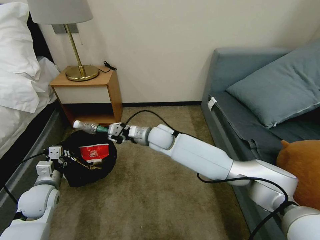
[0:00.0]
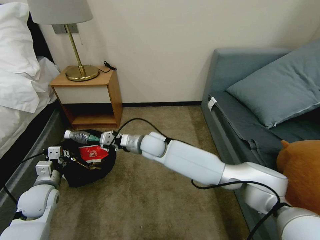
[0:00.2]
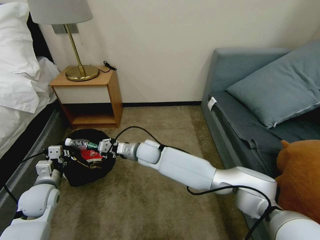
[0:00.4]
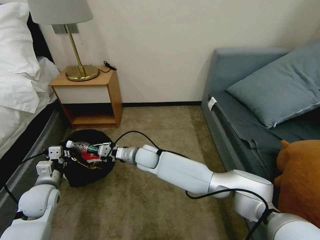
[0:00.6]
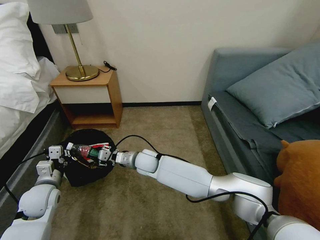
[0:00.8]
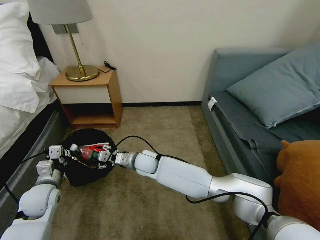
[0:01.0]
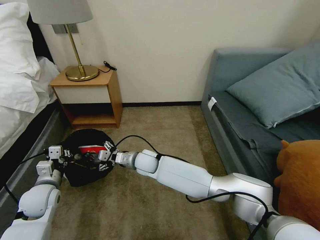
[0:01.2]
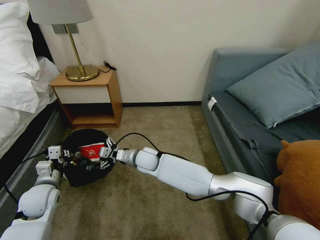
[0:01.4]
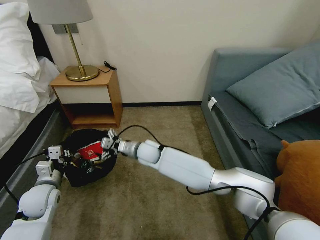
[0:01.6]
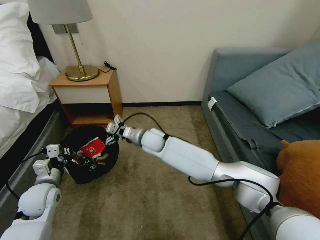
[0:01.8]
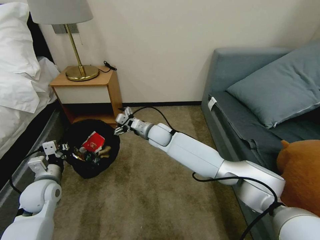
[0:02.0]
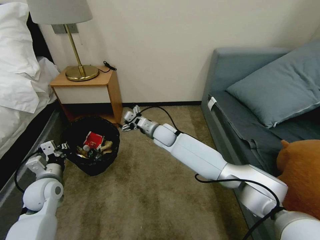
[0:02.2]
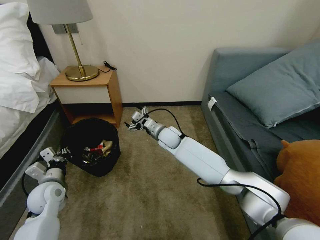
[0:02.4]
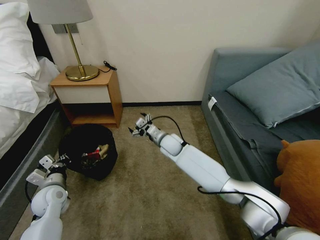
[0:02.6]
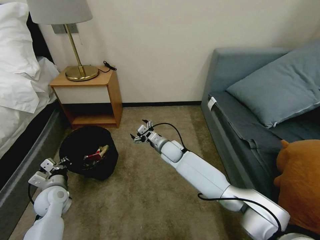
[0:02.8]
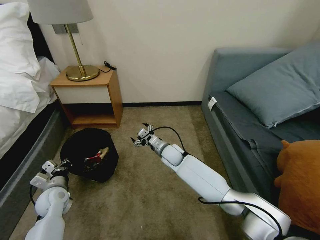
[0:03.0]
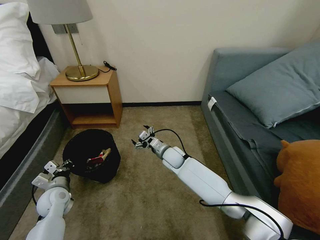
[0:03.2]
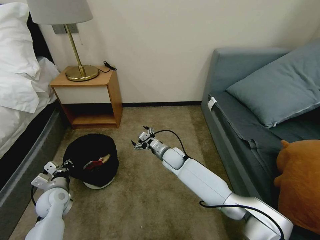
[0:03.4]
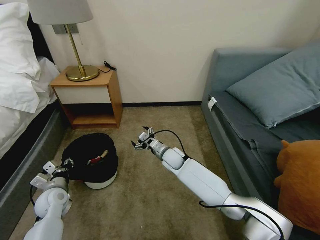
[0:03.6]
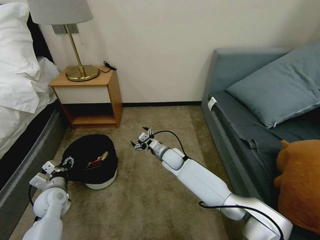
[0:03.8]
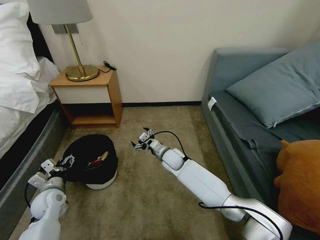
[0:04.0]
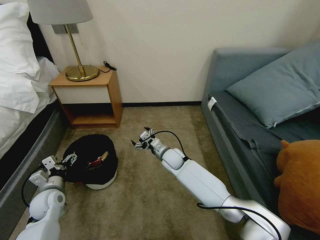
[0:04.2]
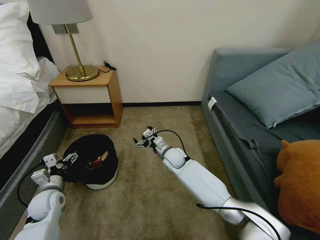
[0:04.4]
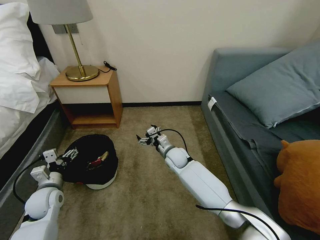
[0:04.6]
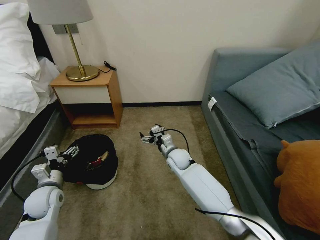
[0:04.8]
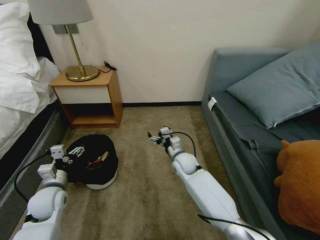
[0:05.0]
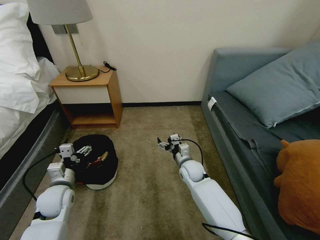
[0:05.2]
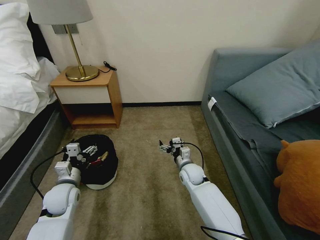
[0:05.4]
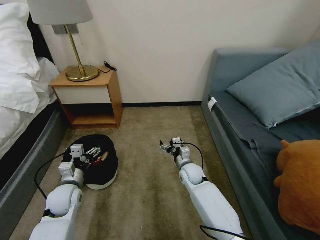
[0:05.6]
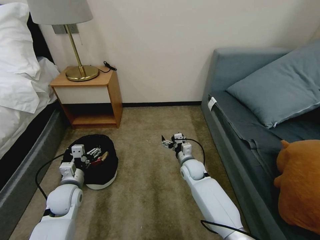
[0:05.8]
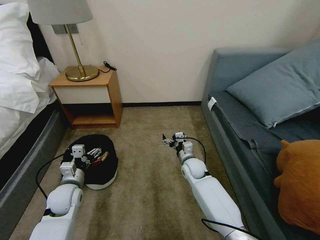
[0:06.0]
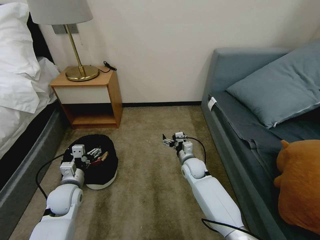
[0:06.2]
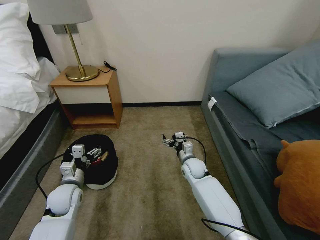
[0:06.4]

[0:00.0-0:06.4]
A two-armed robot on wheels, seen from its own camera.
Task of the whole recording: Pick up the trash bin, then pick up the garbage on the floor and place it into the trash bin.
0:00.0 to 0:01.6: The right gripper shifts about 5 cm downward, and opens.
0:01.6 to 0:03.2: The left gripper moves downward, approximately 5 cm, while the right gripper is displaced to the right and downward by approximately 10 cm.
0:03.2 to 0:04.8: The left gripper changes place by about 5 cm, and opens its fingers.
0:04.8 to 0:06.4: The two grippers go some 5 cm to the right.
